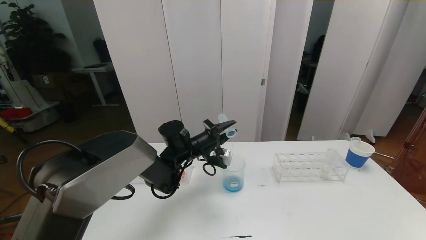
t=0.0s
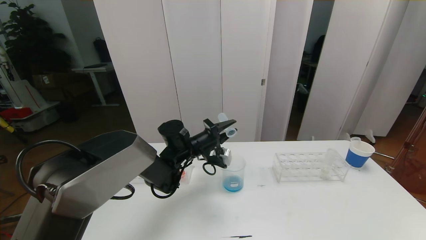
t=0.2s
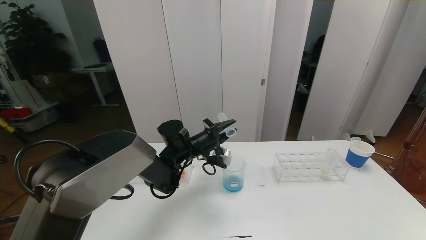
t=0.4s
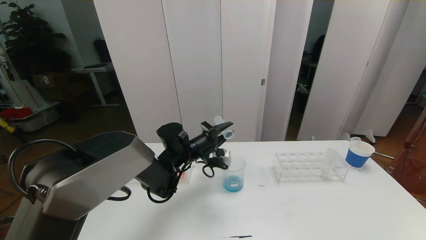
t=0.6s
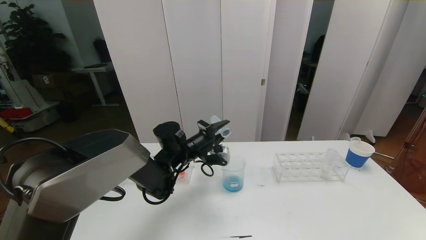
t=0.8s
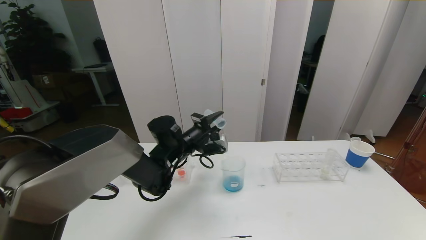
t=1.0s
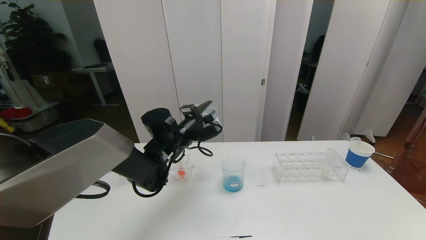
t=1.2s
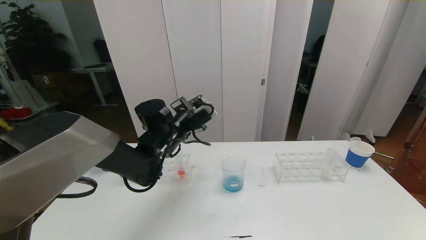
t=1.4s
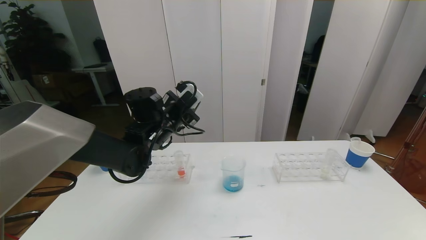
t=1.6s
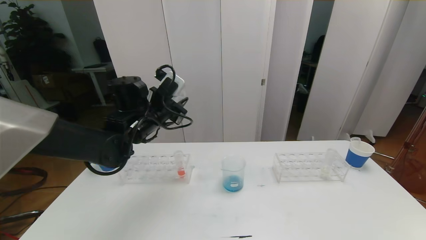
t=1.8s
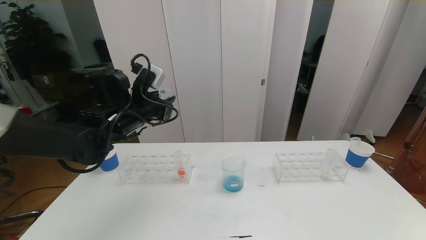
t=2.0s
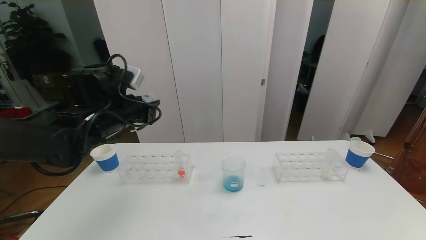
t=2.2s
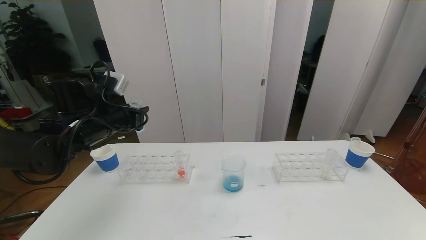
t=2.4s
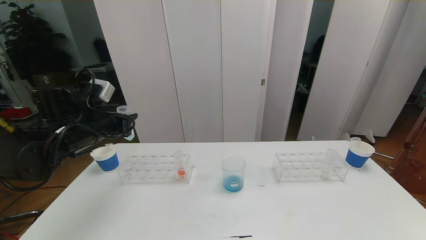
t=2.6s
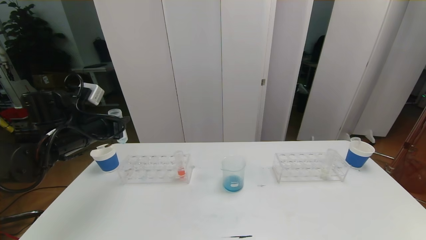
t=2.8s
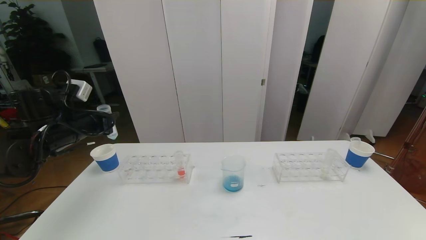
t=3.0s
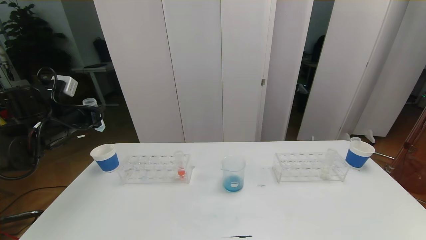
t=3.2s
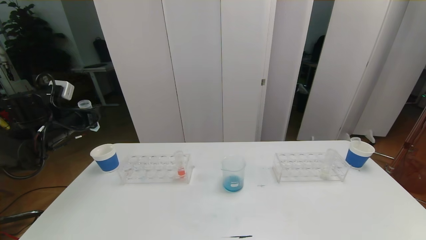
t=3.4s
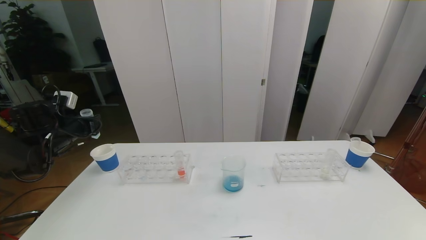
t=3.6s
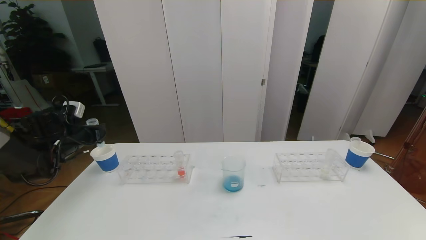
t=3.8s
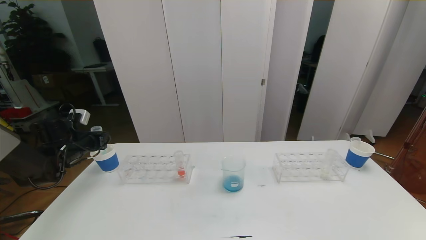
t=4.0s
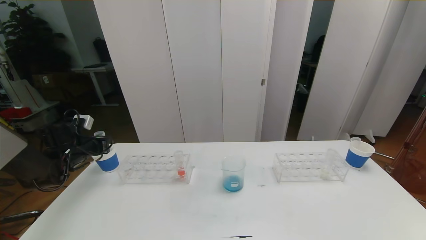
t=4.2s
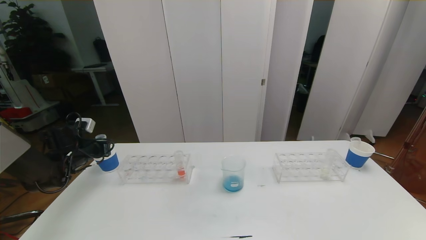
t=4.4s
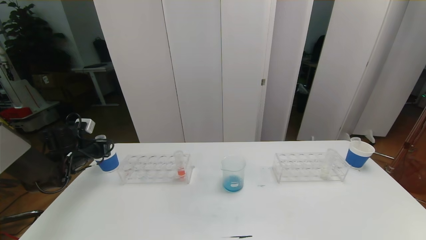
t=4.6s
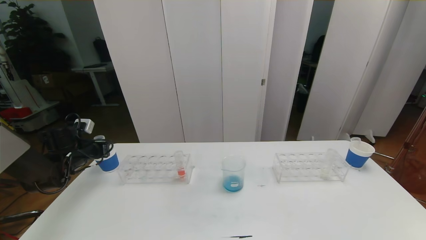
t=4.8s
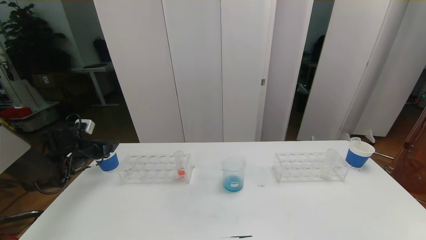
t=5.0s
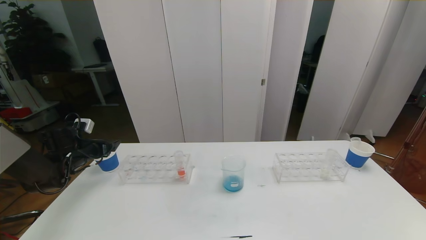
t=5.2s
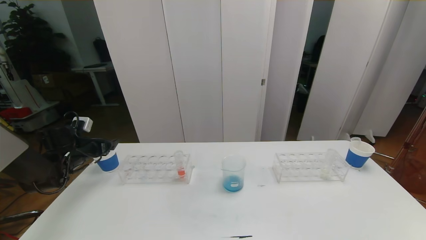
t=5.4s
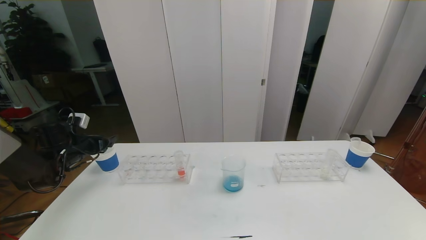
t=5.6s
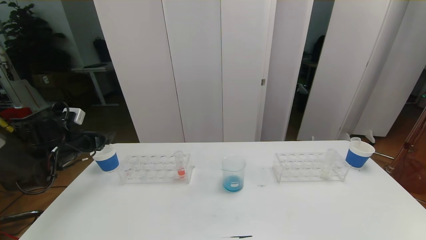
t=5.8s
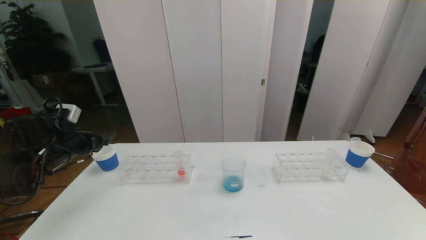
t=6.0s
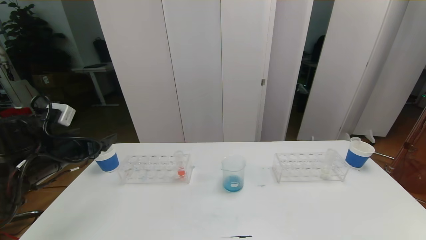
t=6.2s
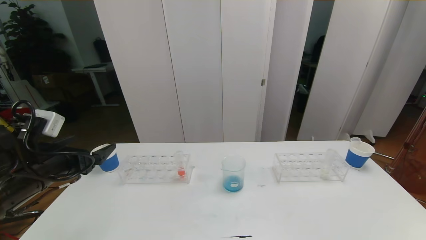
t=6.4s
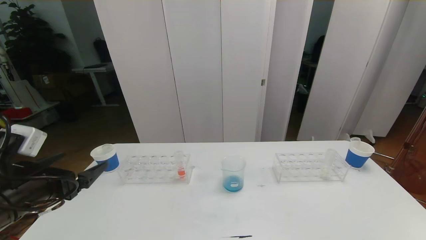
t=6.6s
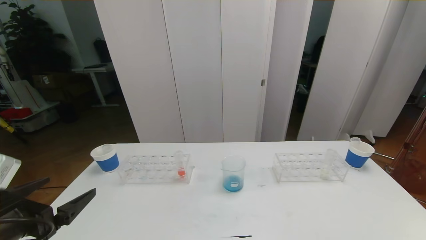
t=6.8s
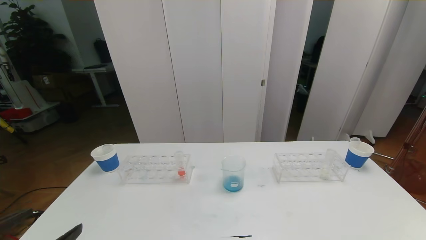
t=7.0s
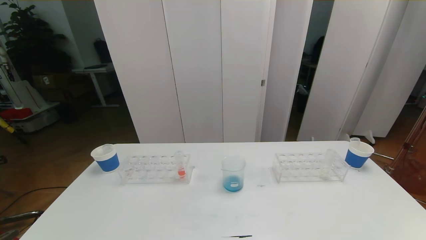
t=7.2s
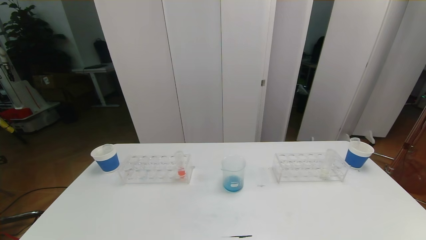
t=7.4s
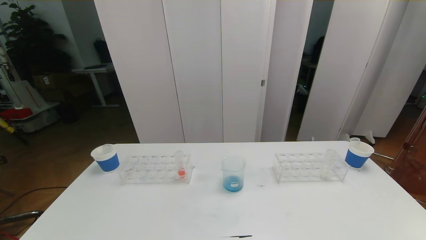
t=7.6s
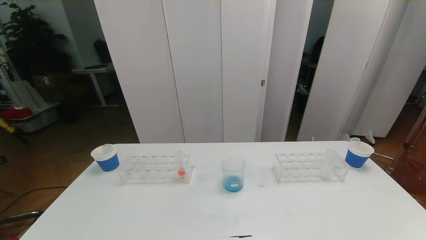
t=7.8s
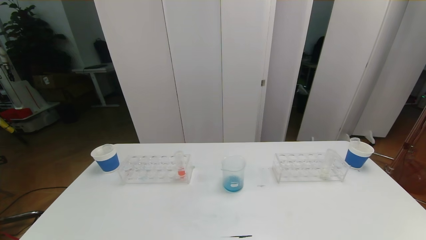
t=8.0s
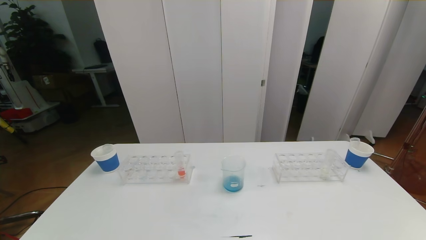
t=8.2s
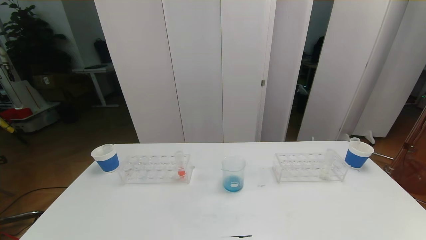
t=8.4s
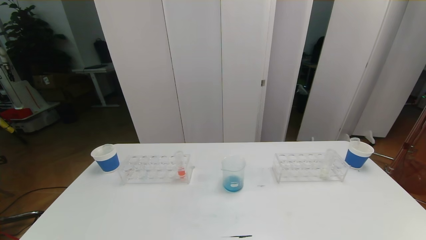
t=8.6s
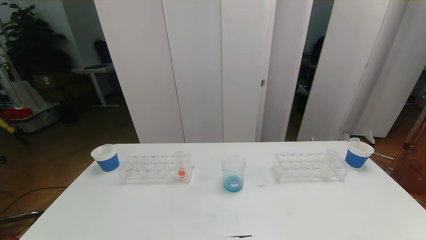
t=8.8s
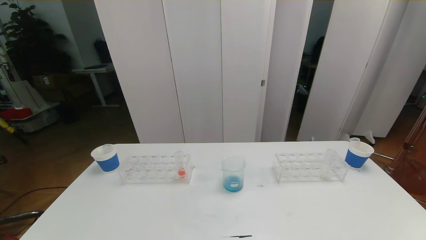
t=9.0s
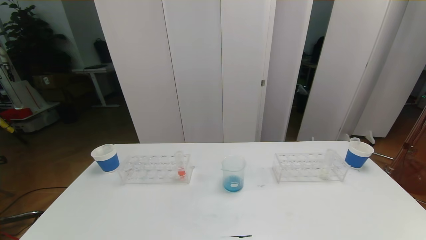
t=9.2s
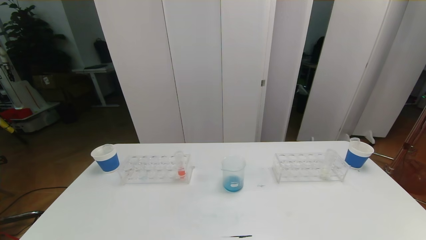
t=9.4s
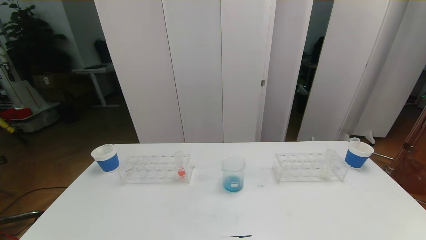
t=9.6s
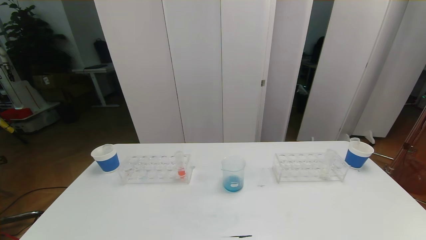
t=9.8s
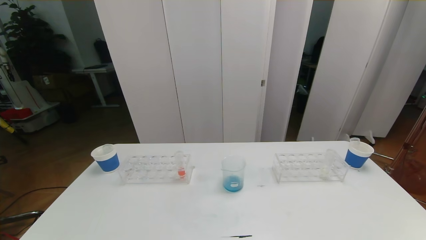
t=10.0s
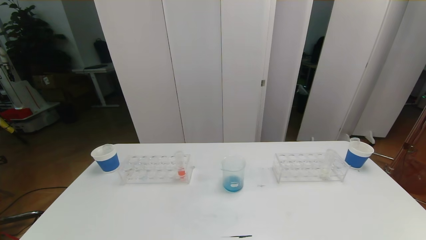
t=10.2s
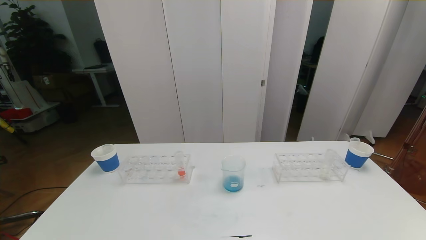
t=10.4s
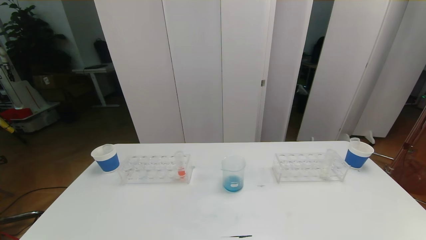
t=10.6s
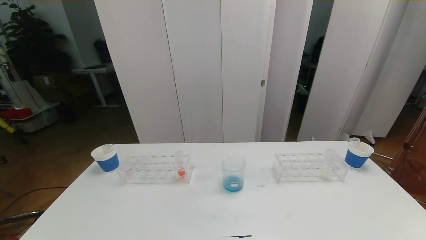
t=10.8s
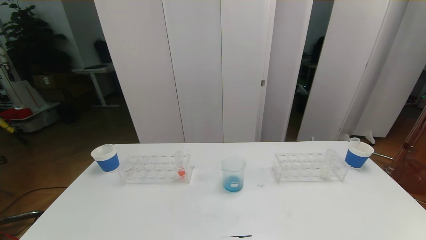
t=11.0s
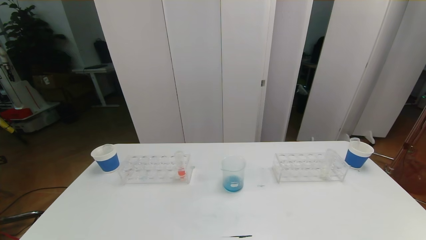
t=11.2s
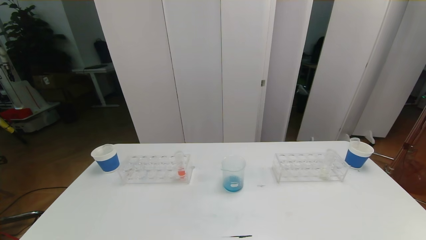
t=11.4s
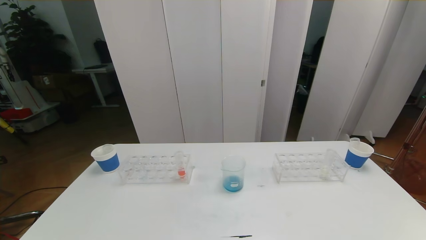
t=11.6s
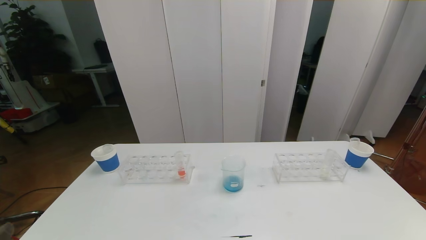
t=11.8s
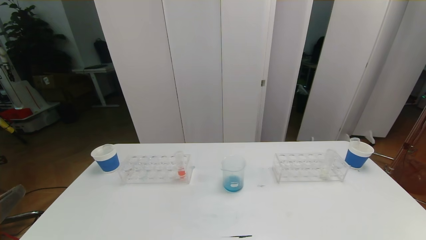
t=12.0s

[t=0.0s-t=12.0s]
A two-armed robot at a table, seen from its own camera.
Task of the whole recording: pick up the test tube with red pigment the test tube with blue pigment and the test tube with white pigment by grippers and pour them into the beaker.
Step, t=0.0s to t=11.0s: Pour the blue reagent into the graduated cylinder and place the test tube into the paper cup.
t=0.0s to t=1.6s: The left gripper goes approximately 10 cm upward and to the left.
t=1.6s to t=3.0s: The left gripper heads to the left, covering approximately 20 cm.
t=3.0s to t=4.4s: The left gripper moves downward, to the left and forward, roughly 15 cm.
t=4.4s to t=6.0s: The left gripper travels upward and backward by roughly 10 cm, and opens.
t=6.0s to t=7.6s: The left gripper travels backward by approximately 35 cm.
t=9.0s to t=10.4s: Neither gripper changes place.

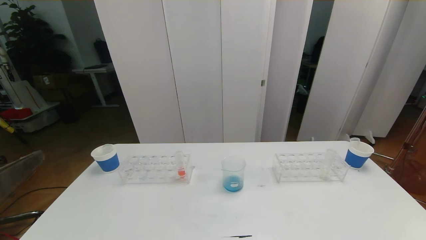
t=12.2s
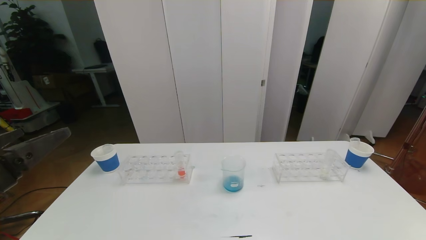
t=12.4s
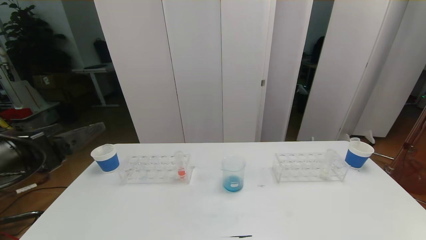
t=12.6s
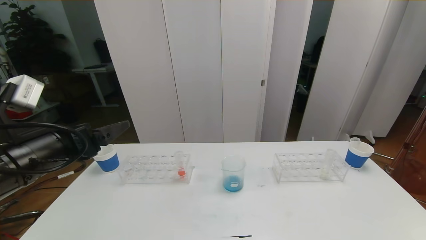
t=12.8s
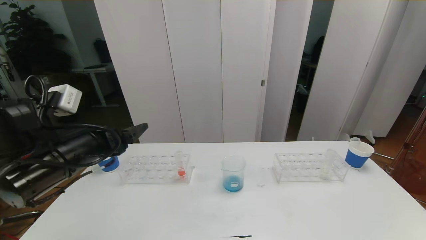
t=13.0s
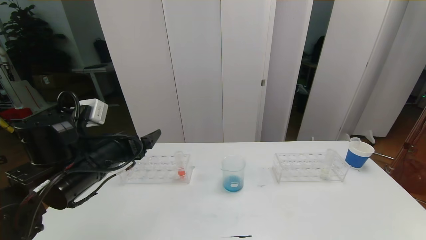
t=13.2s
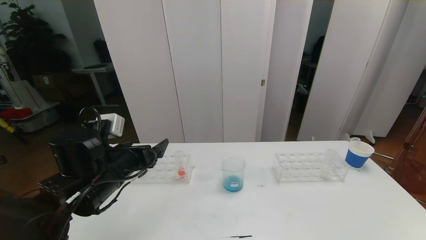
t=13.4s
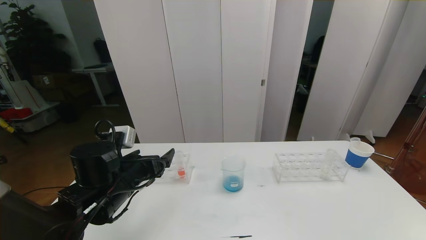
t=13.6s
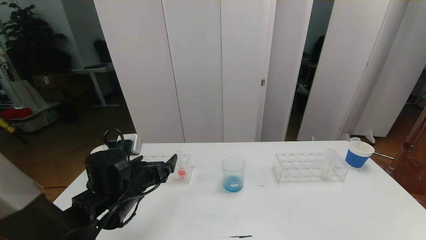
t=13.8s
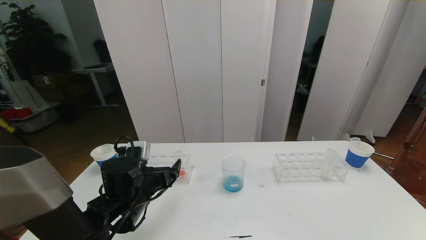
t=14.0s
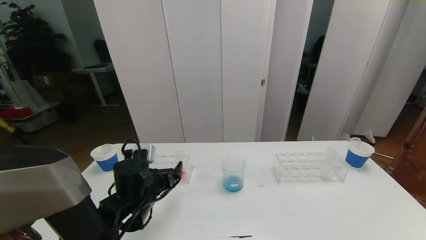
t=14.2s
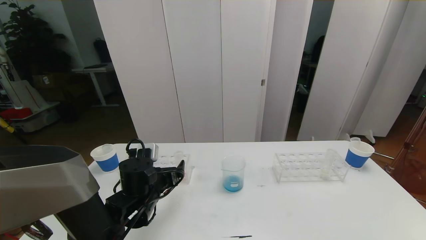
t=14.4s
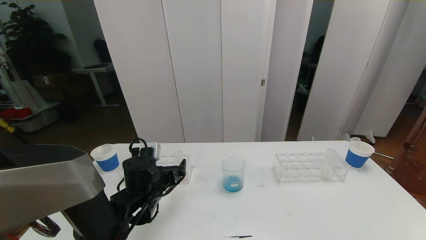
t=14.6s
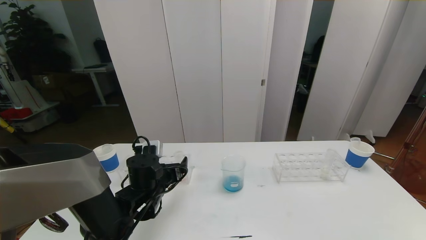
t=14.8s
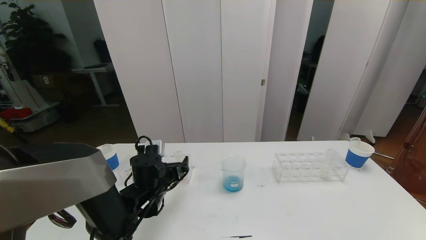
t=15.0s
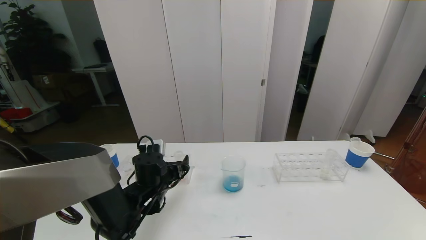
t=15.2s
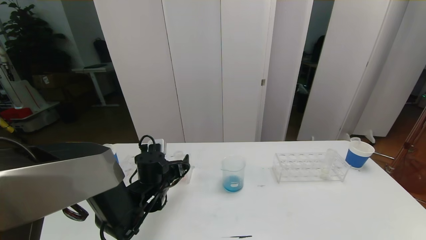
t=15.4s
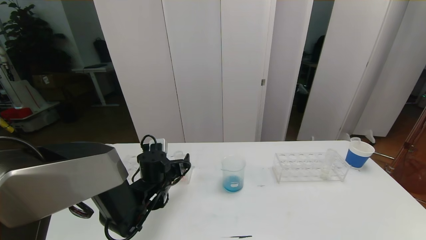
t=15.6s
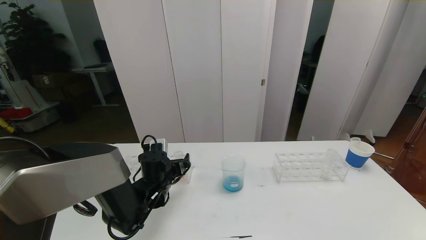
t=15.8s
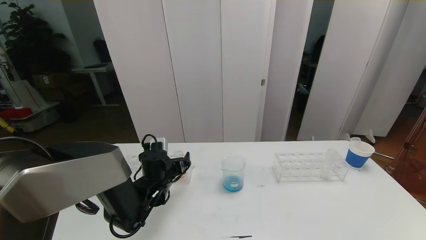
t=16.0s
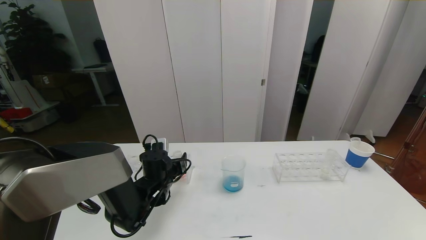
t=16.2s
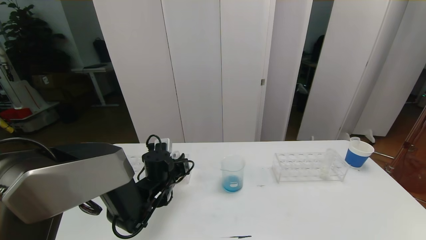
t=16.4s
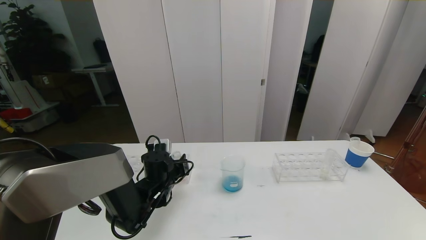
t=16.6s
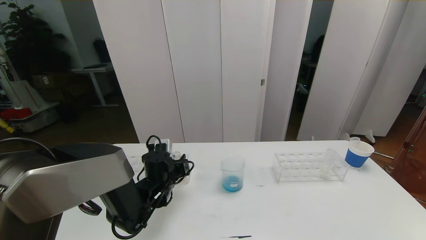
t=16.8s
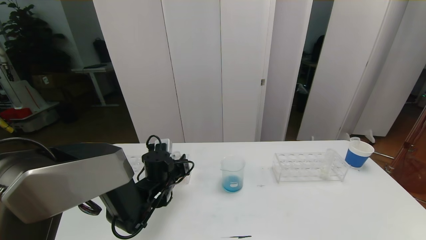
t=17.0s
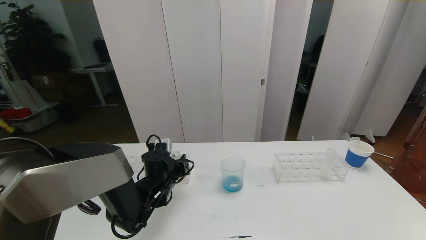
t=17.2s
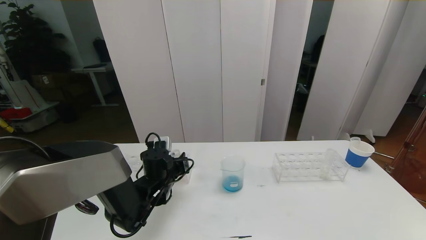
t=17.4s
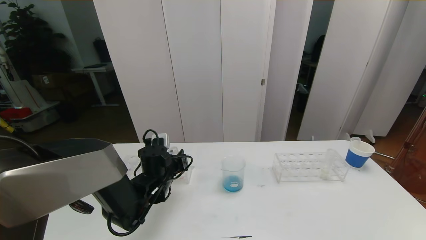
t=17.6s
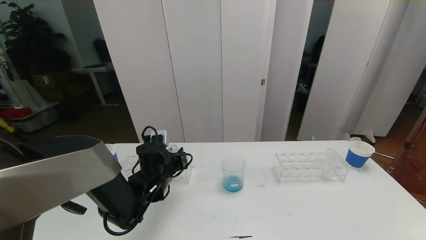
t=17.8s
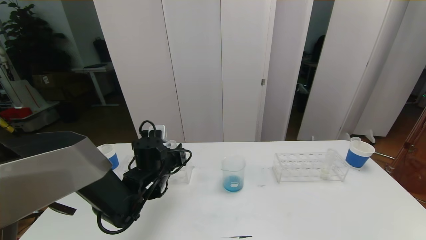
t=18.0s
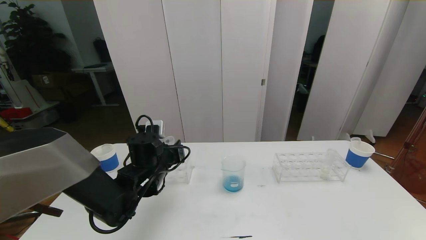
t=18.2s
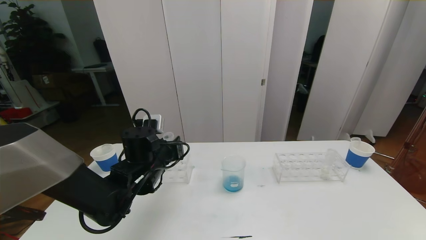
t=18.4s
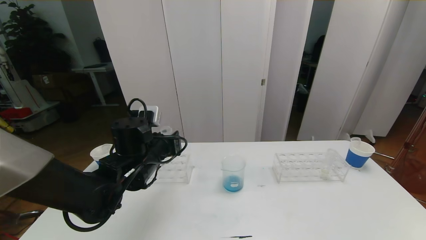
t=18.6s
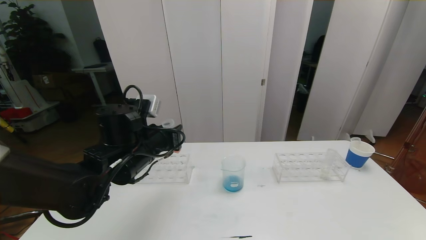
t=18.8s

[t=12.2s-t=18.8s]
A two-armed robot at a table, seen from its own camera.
Task of the whole recording: pick up the test tube with red pigment the test tube with blue pigment and the test tube with white pigment by grippers and pour them into the beaker.
t=12.2s to t=13.8s: The left gripper is displaced forward, downward and to the right by approximately 25 cm.
t=13.8s to t=15.4s: The left gripper heads forward and downward, covering approximately 10 cm.
t=15.4s to t=17.2s: The left gripper closes.
t=17.2s to t=18.8s: The left gripper shifts some 15 cm upward.
